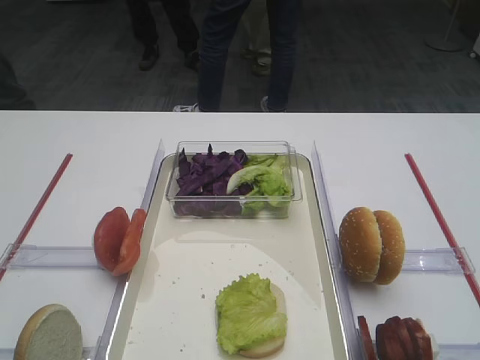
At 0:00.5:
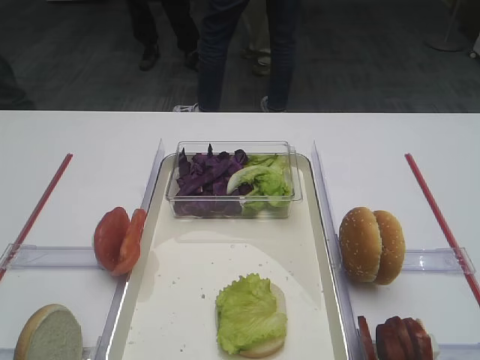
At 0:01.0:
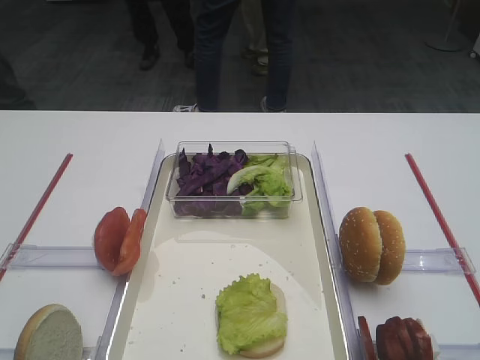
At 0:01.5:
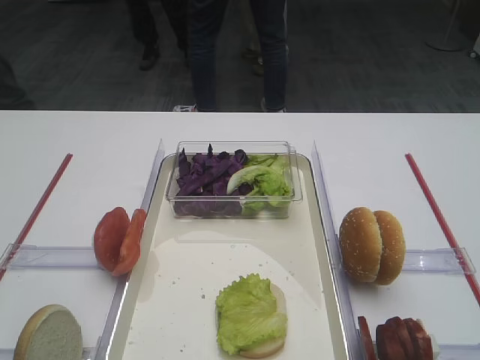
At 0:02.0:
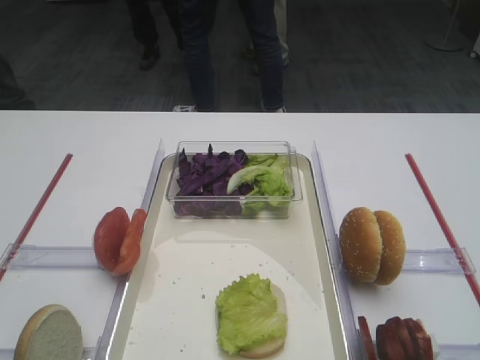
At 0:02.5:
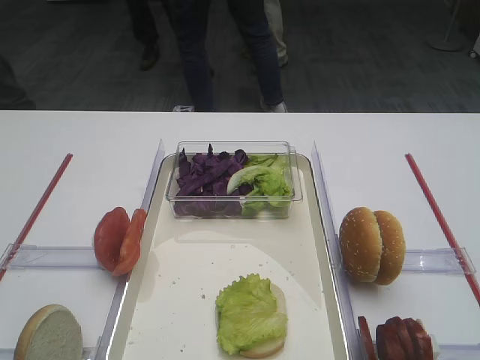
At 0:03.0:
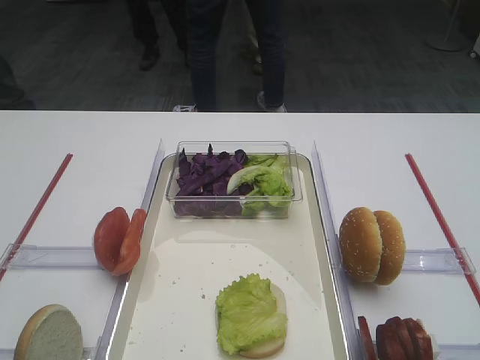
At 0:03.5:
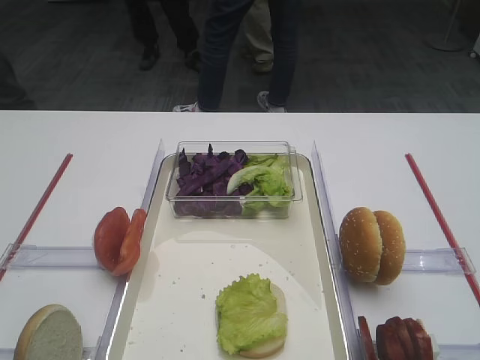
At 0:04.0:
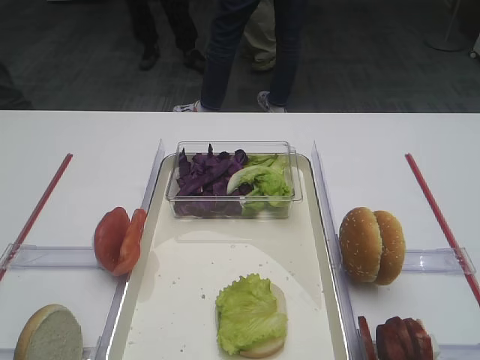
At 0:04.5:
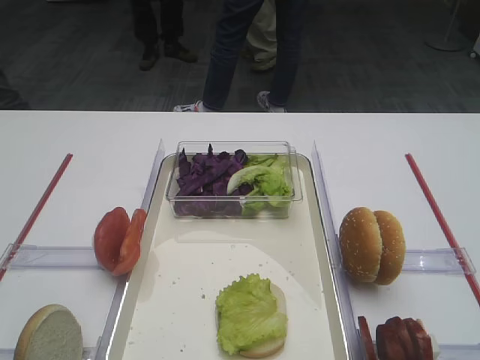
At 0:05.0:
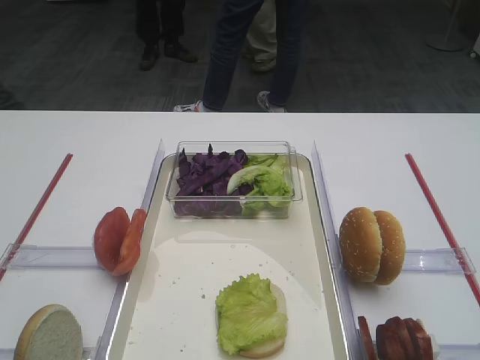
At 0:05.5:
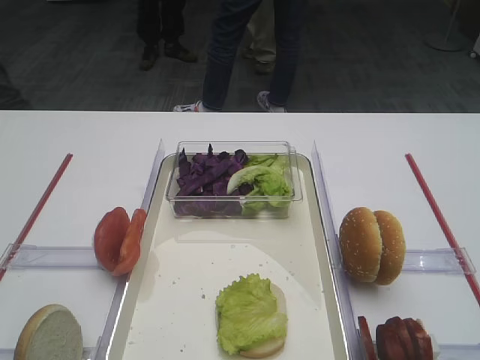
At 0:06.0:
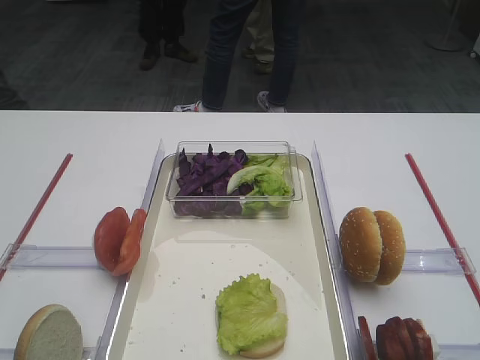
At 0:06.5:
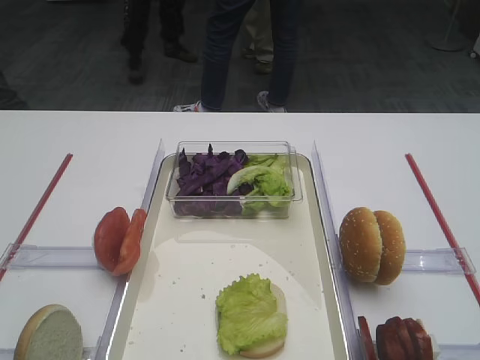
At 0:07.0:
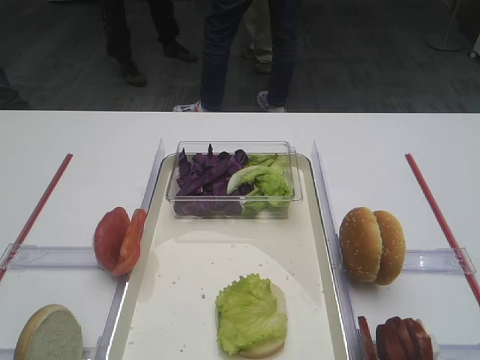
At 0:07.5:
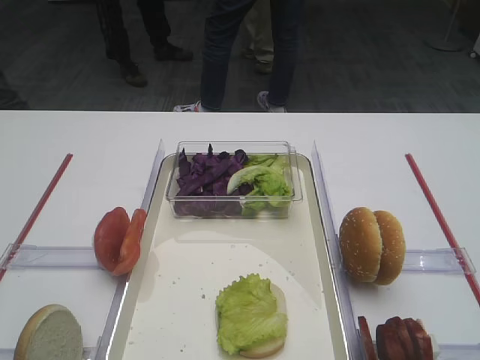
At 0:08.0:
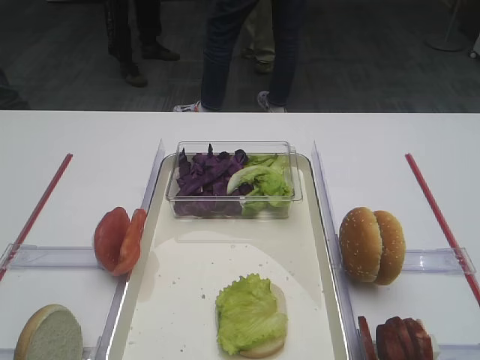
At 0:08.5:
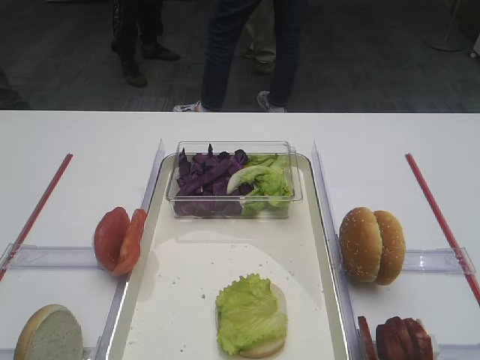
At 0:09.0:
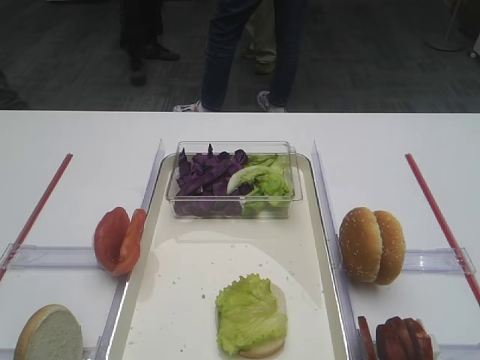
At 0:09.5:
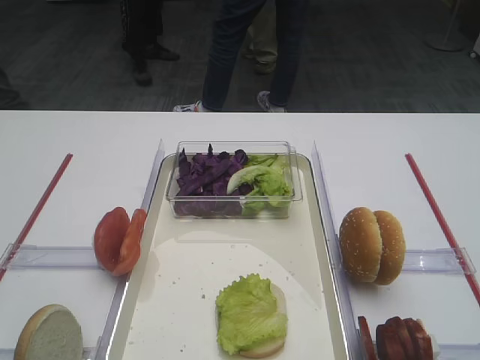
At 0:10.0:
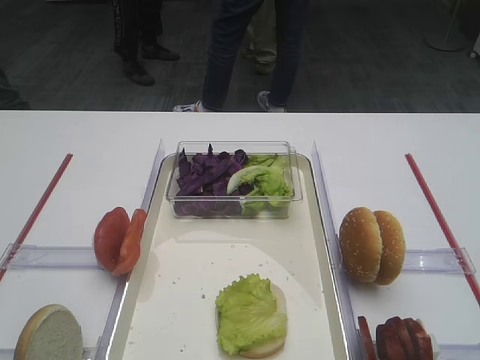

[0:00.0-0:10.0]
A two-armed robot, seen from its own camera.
0:00.0 to 0:10.0: The two grippers keep their place.

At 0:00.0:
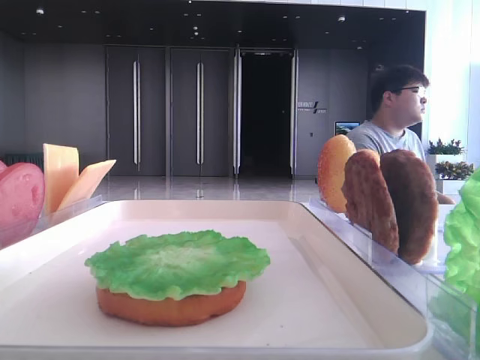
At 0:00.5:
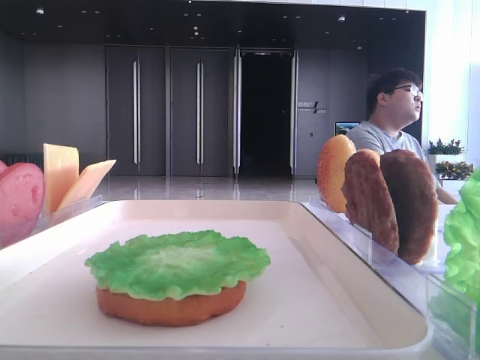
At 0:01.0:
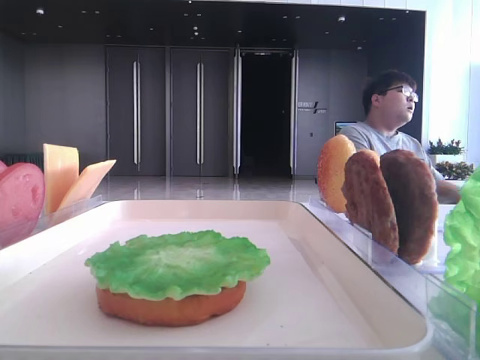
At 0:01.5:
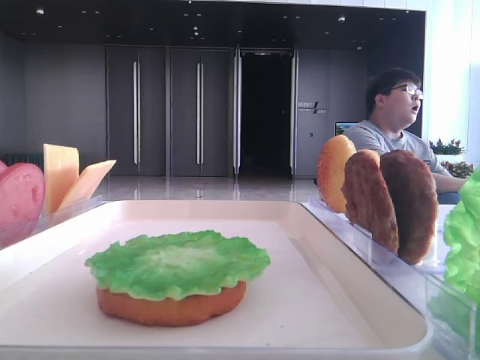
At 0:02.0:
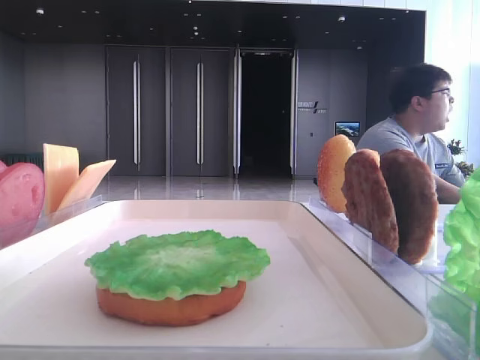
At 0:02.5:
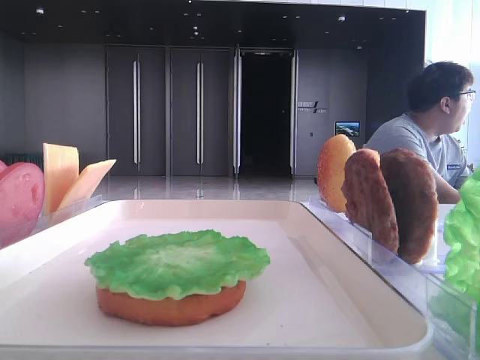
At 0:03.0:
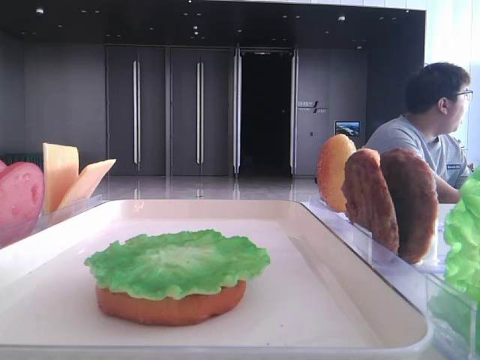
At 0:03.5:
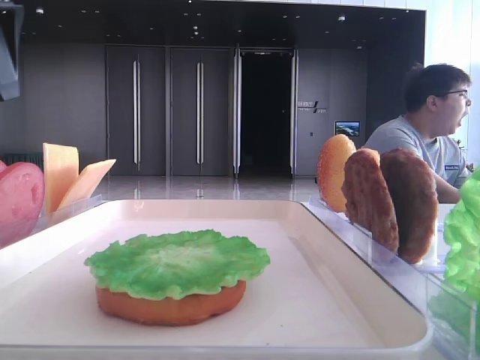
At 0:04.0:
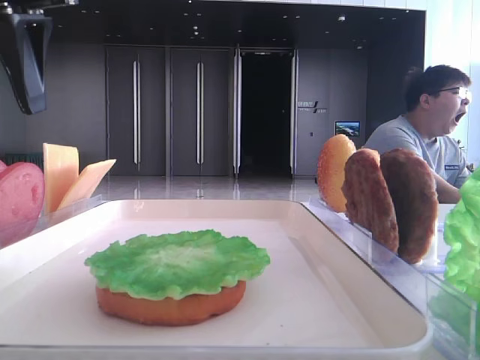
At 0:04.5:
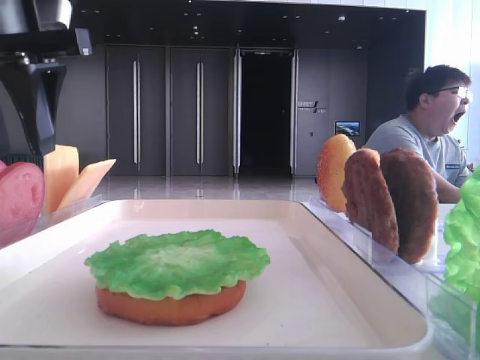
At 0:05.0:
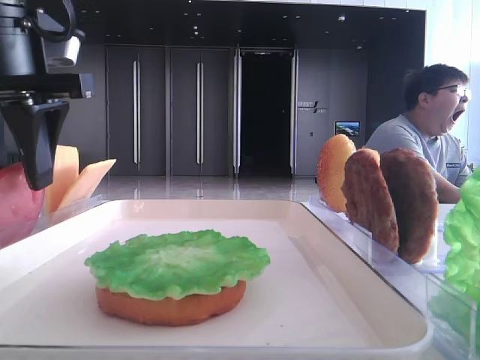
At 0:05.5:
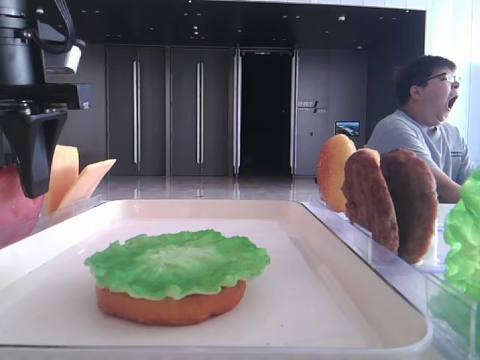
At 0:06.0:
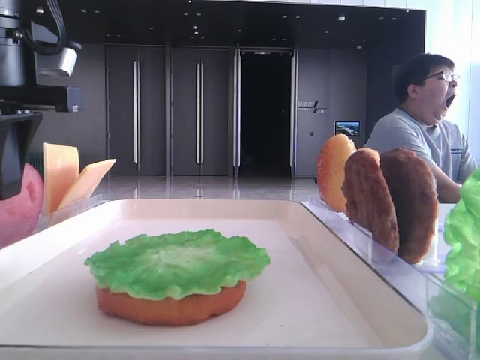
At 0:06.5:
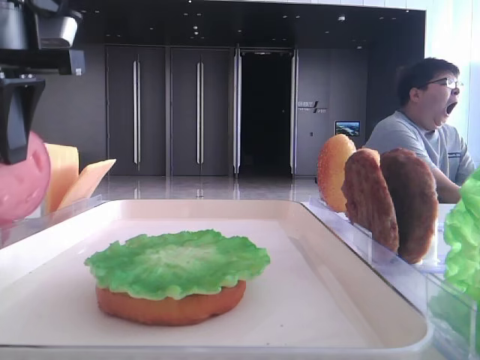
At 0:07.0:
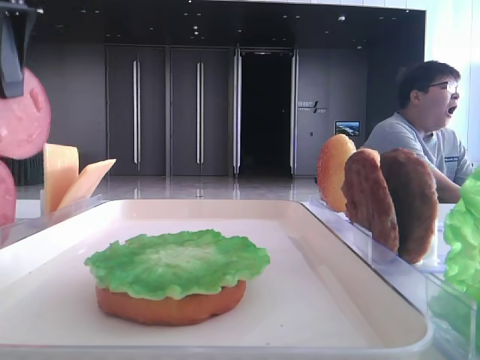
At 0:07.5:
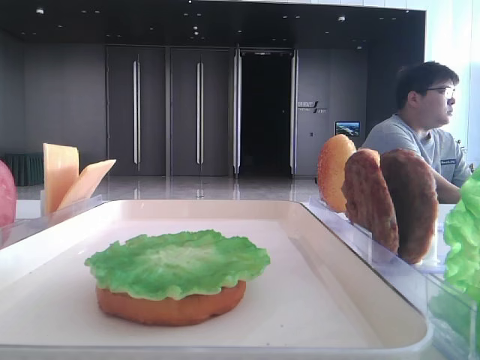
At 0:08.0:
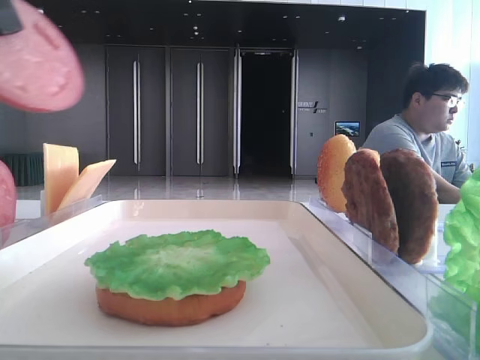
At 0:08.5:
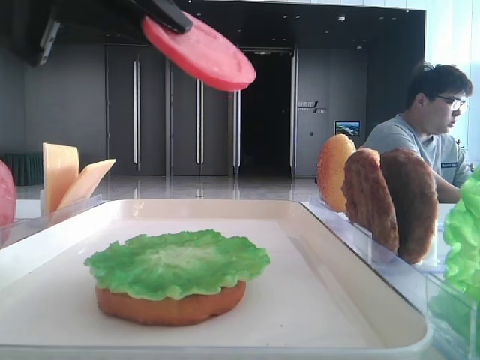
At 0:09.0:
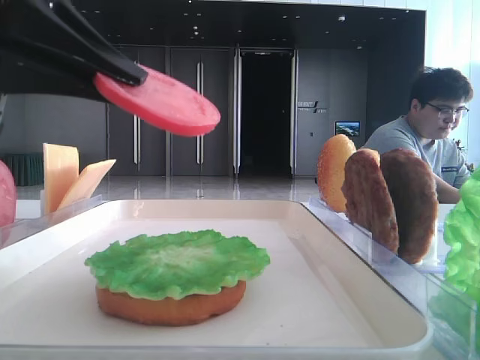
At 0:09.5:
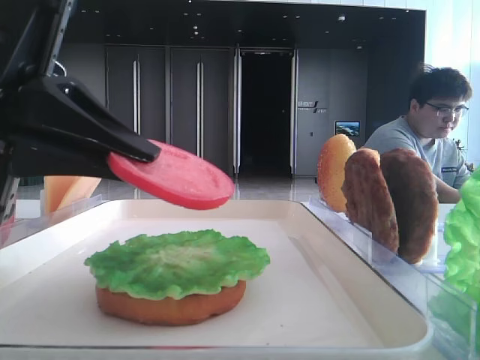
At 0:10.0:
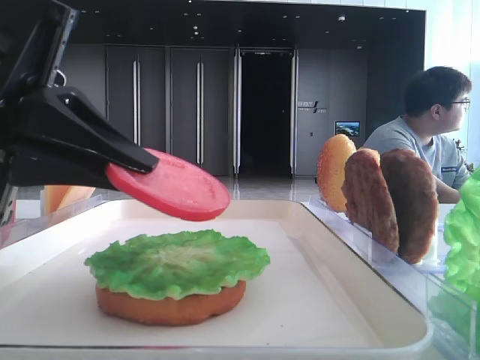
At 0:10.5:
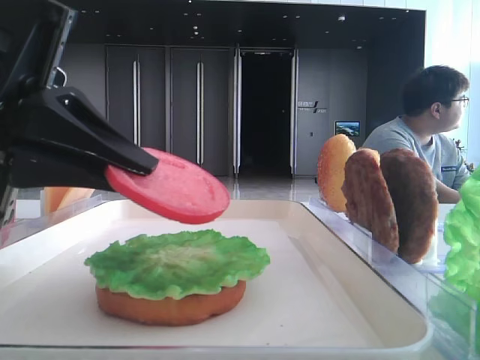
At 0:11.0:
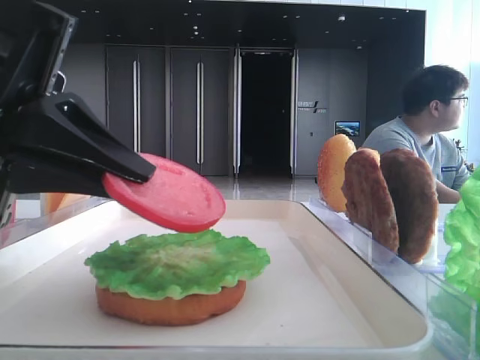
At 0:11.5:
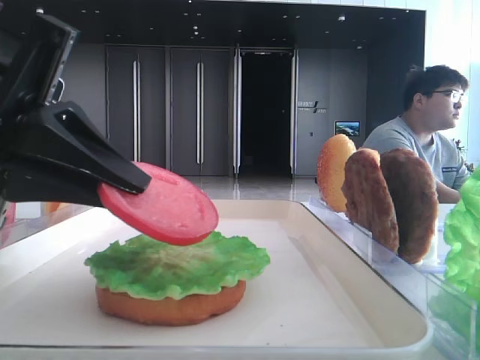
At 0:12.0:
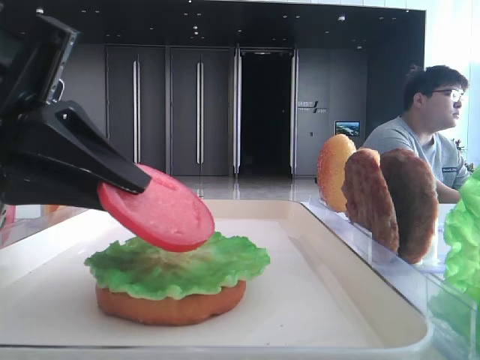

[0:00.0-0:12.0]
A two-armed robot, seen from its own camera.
Step, 0:00.0 to 0:05.5: Pick up the tomato slice with the left hand.
0:02.0 to 0:04.0: The left gripper is displaced forward and to the right by about 25 cm.
0:04.0 to 0:06.0: The left gripper goes about 5 cm downward, and closes its fingers.
0:06.0 to 0:08.0: The left gripper moves backward and upward, some 15 cm.
0:08.0 to 0:10.0: The left gripper is displaced downward by approximately 15 cm.
0:10.0 to 0:12.0: There are only small adjustments of the grippers.

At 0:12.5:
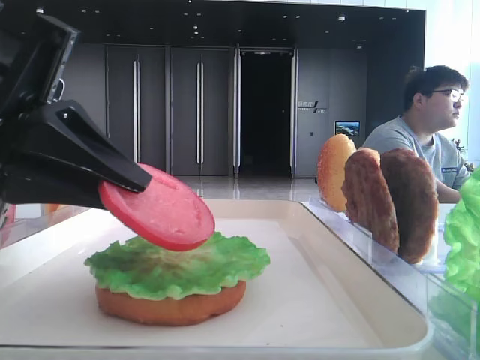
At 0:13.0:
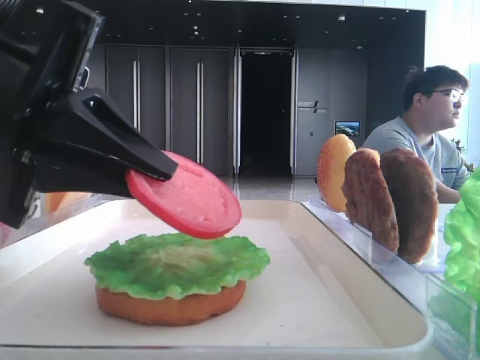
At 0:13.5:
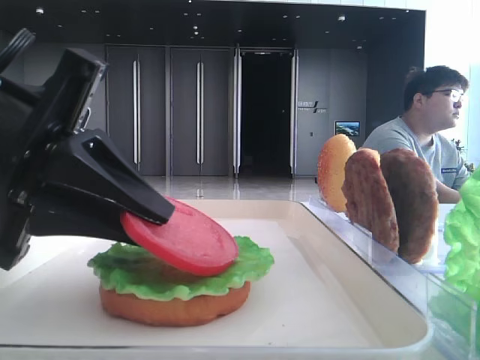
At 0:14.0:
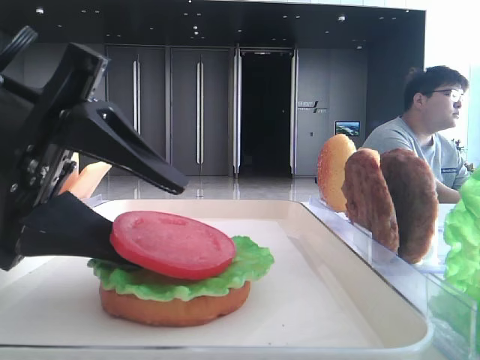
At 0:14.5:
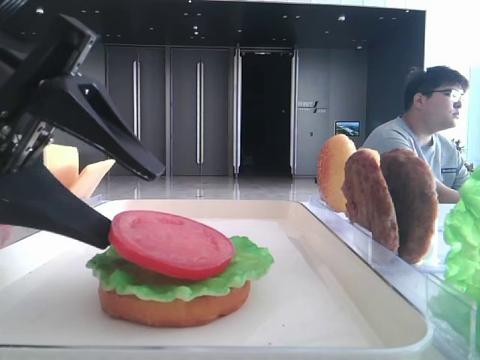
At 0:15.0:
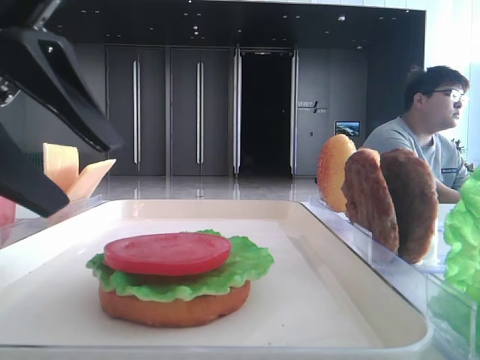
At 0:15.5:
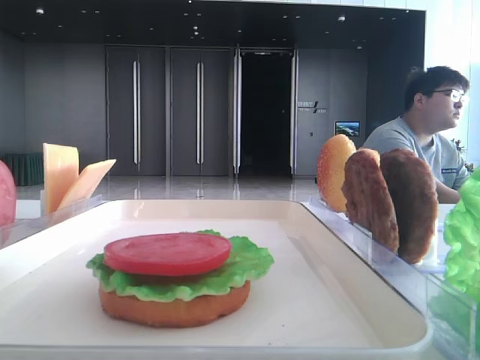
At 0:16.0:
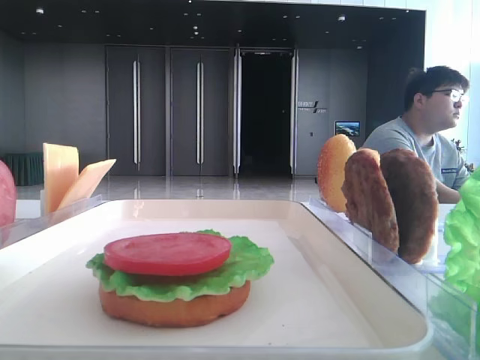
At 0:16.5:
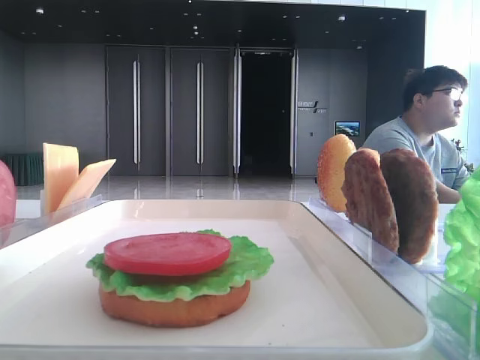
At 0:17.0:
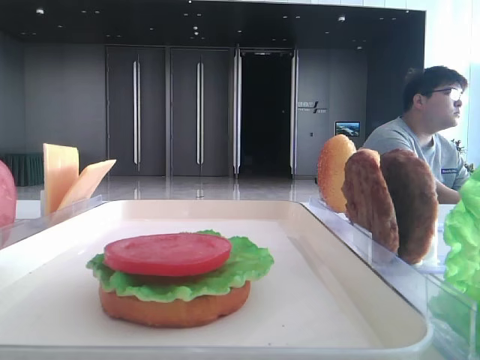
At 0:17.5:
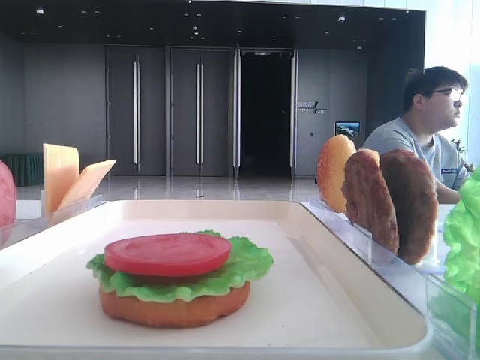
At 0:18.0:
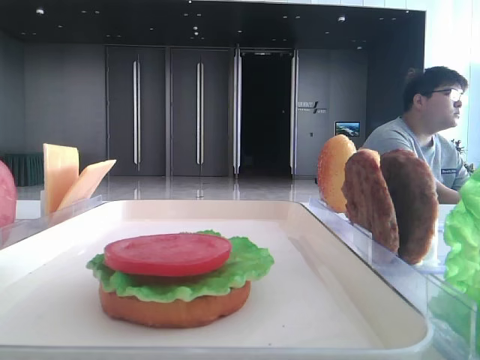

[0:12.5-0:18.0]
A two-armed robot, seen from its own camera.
Step, 0:12.5 to 0:14.5: Place the tomato slice on the lettuce leaf with the left hand.
0:12.5 to 0:14.5: The left gripper opens.
0:14.5 to 0:16.0: The left gripper shifts approximately 20 cm upward and to the left.
